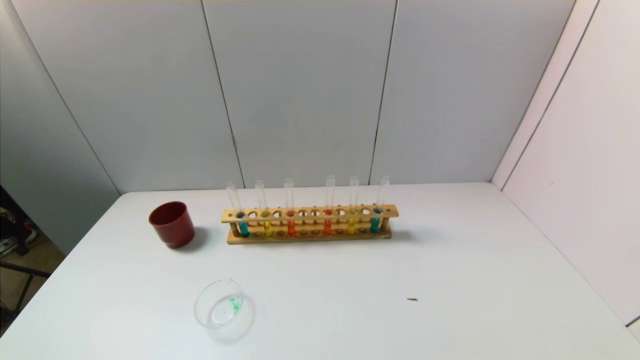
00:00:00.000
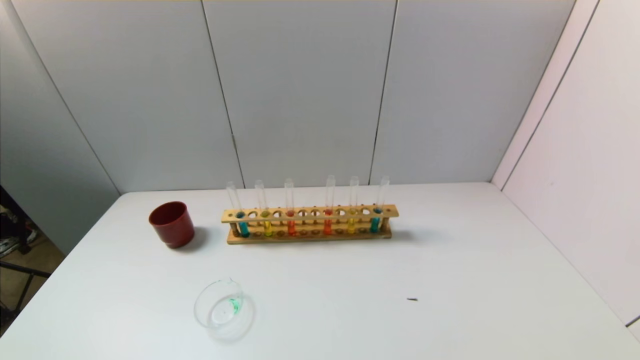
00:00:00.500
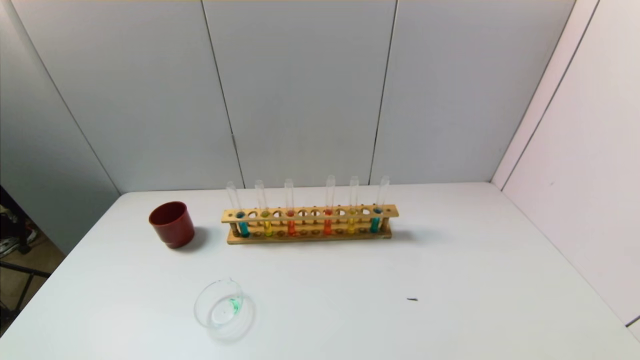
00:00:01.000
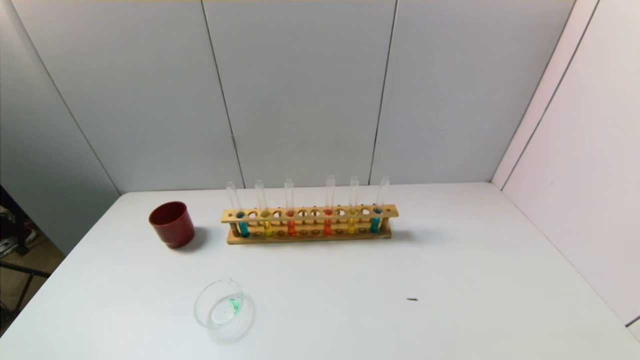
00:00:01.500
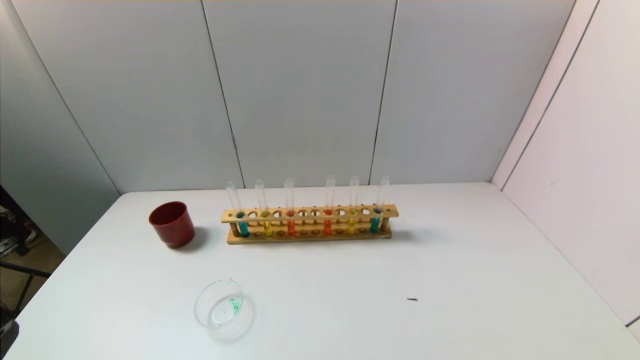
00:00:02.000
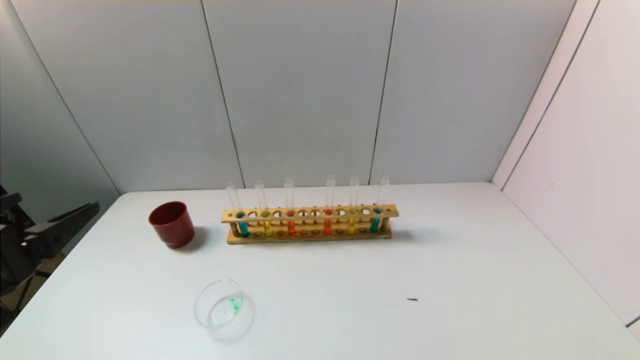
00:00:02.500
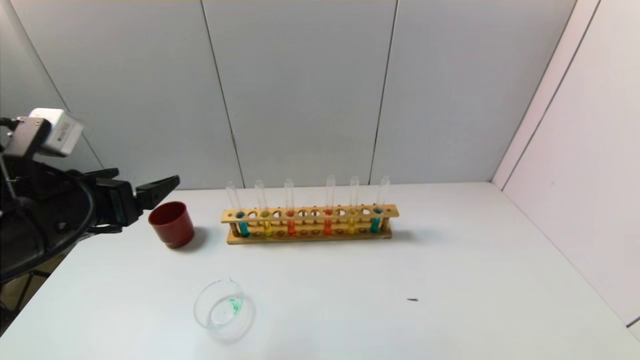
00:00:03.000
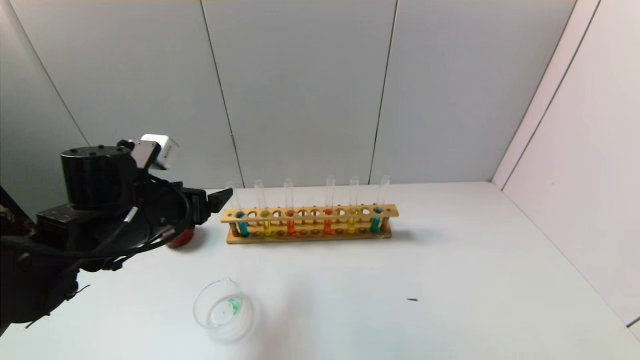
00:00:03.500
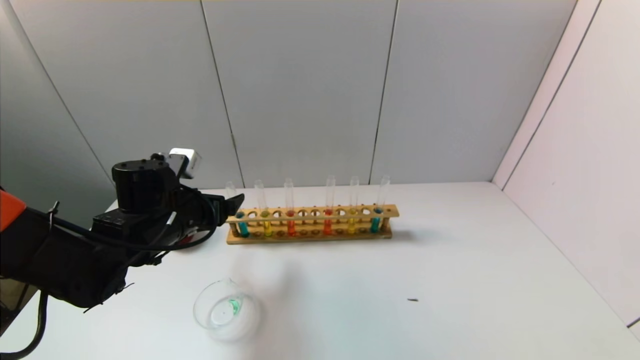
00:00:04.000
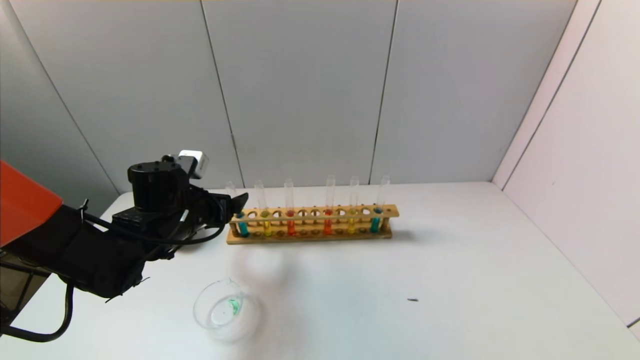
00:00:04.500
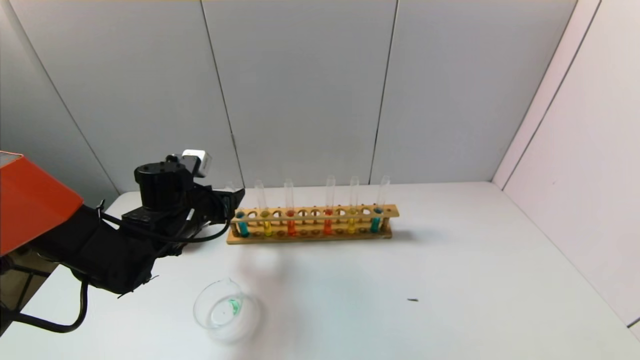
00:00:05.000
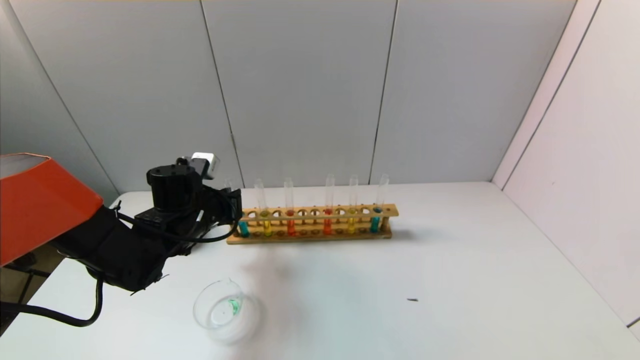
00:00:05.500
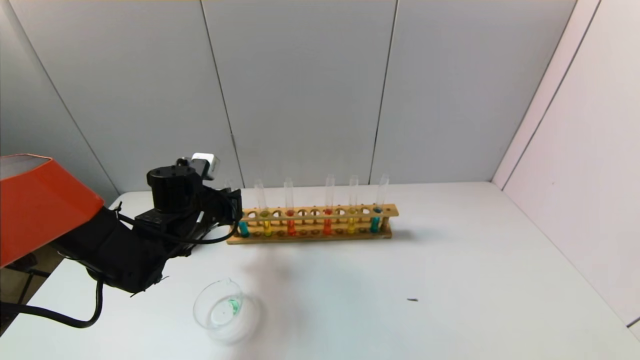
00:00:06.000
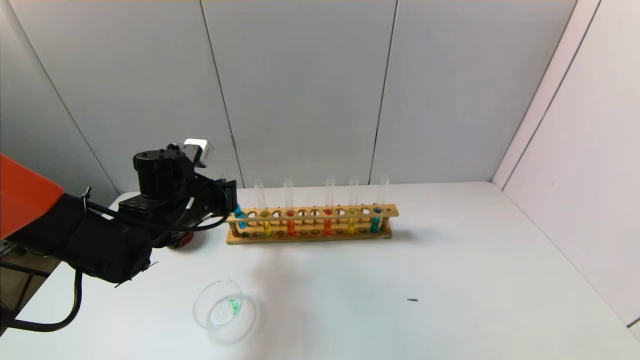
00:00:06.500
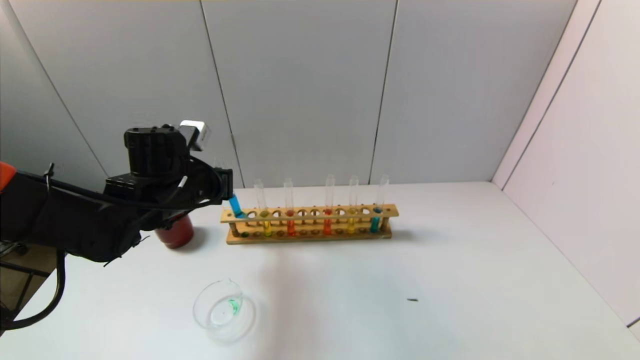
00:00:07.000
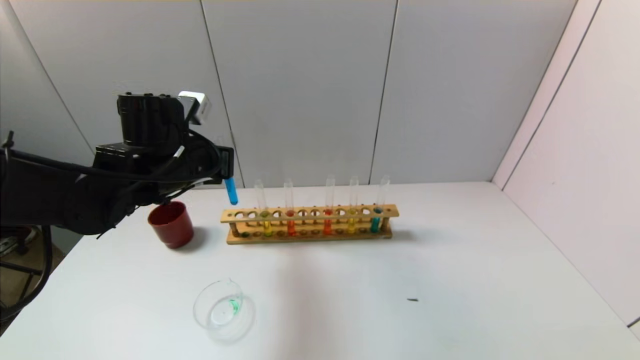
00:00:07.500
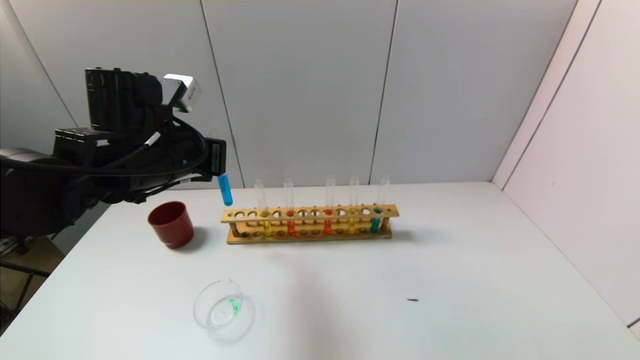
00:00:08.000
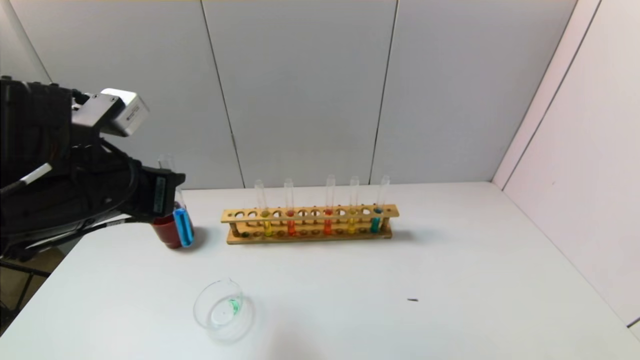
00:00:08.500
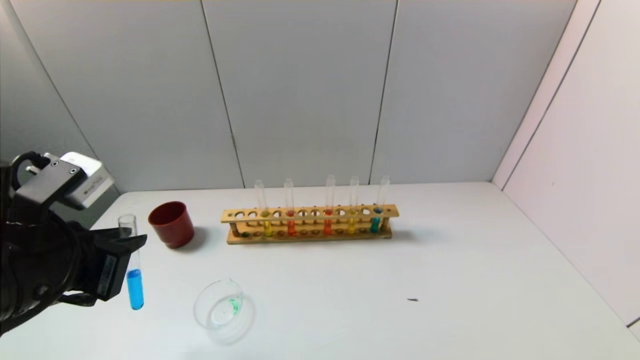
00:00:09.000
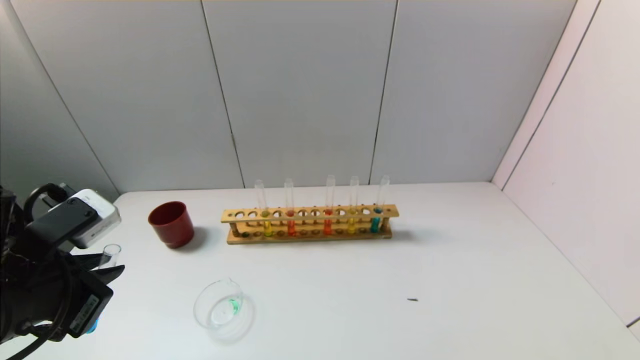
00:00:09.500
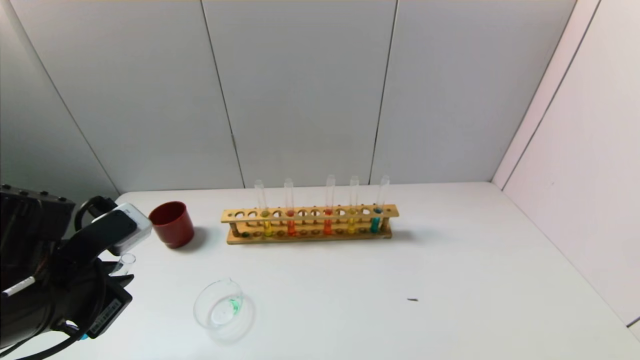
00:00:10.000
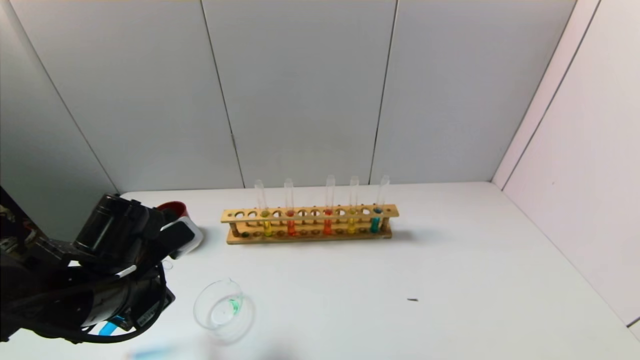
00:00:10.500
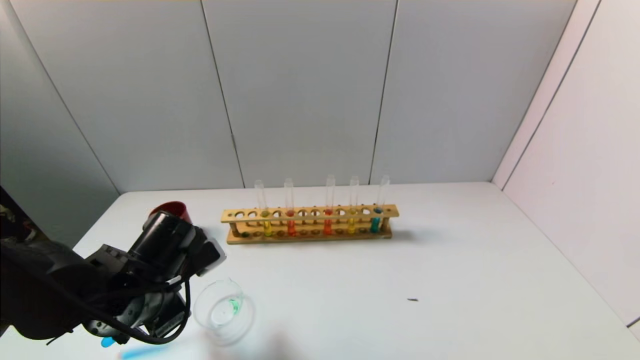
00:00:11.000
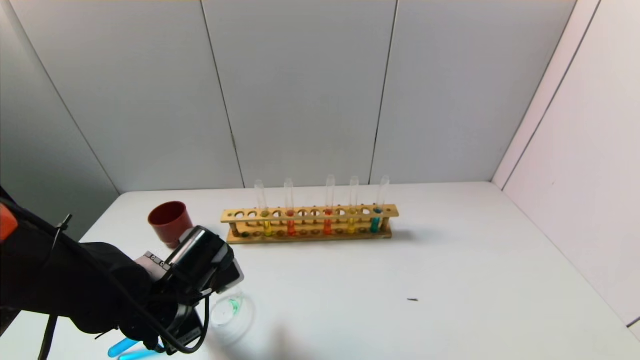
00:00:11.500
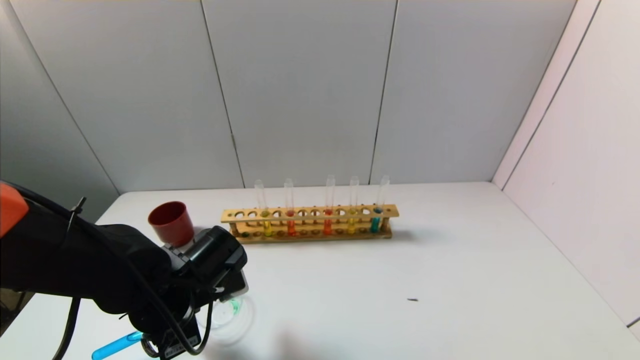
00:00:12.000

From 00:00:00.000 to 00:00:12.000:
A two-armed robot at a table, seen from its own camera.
Task of the whole recording: pick up the test tube with yellow pigment and the test tube with blue pigment by grippers and pour them into the beaker.
Step, from 00:00:00.000 to 00:00:05.500: Grasp the blue reagent with the left gripper.
From 00:00:02.000 to 00:00:04.000: The left gripper shifts roughly 30 cm forward.
From 00:00:04.000 to 00:00:06.000: The left gripper shifts by approximately 5 cm, and closes its fingers.
From 00:00:06.000 to 00:00:08.000: The left gripper moves upward, roughly 15 cm.
From 00:00:08.000 to 00:00:10.000: The left gripper travels backward, downward and to the left by roughly 15 cm.
From 00:00:10.000 to 00:00:12.000: The left gripper is displaced downward, to the right and forward by approximately 15 cm.

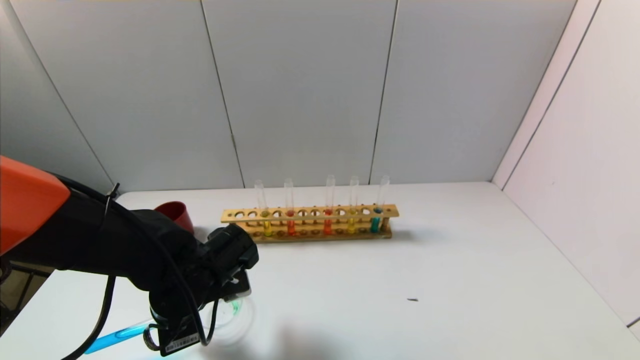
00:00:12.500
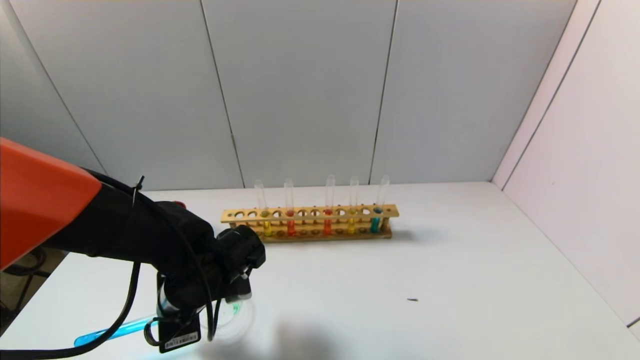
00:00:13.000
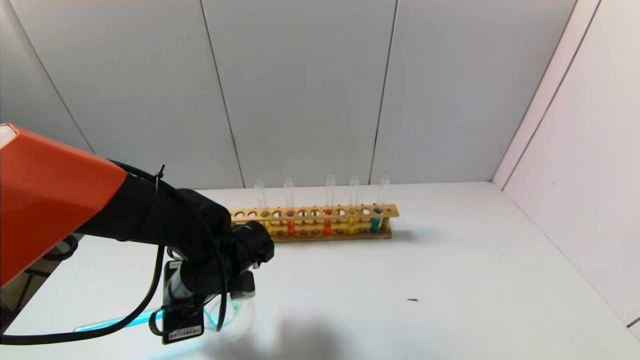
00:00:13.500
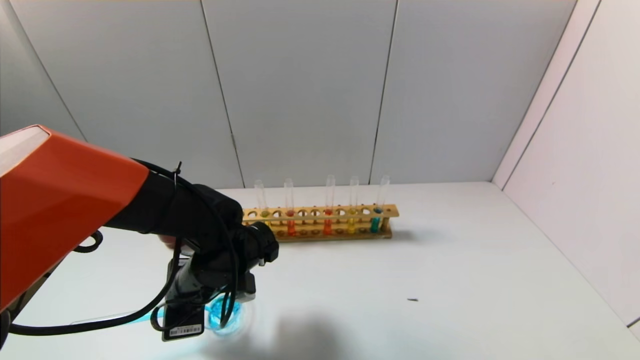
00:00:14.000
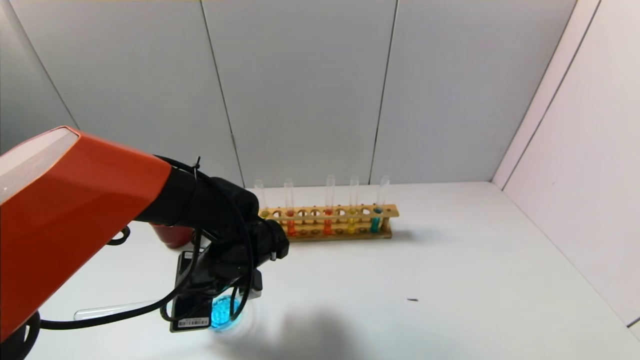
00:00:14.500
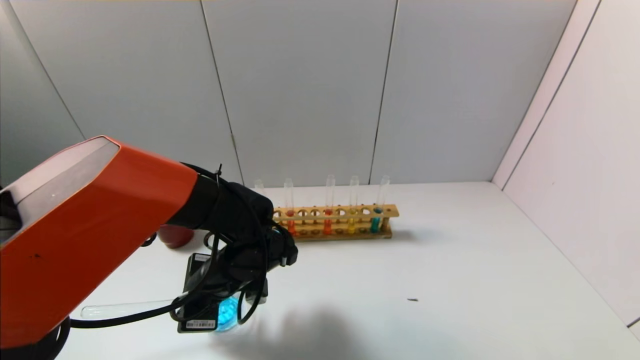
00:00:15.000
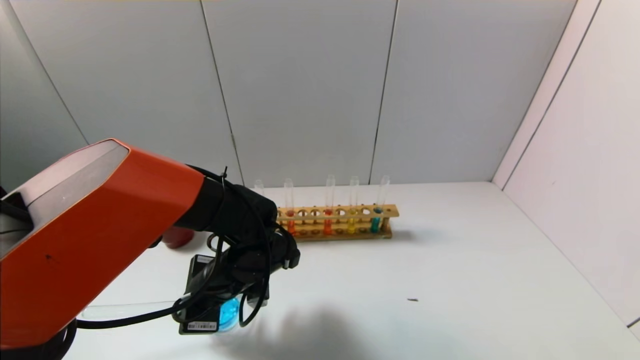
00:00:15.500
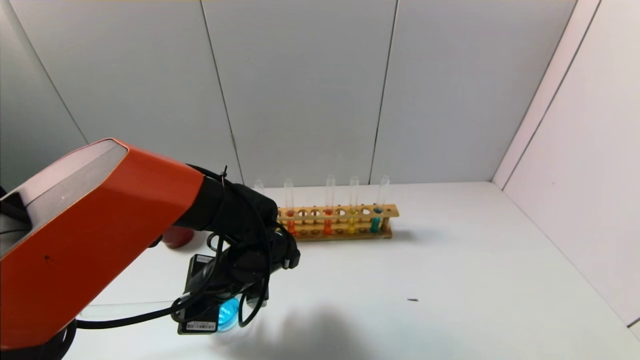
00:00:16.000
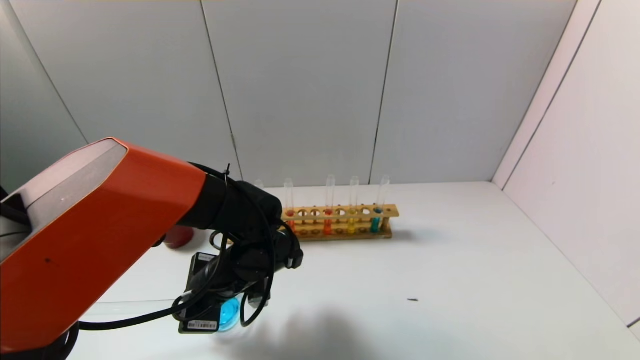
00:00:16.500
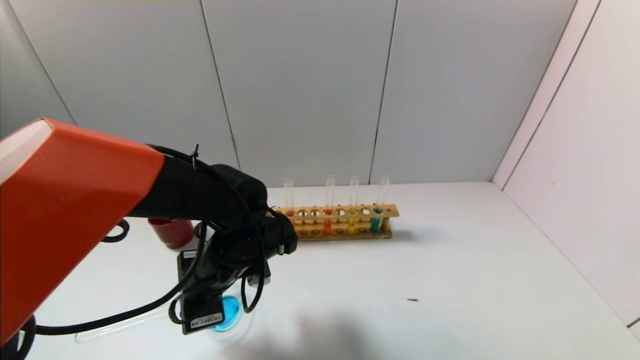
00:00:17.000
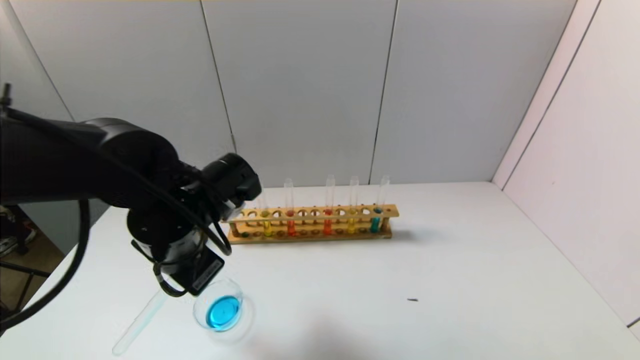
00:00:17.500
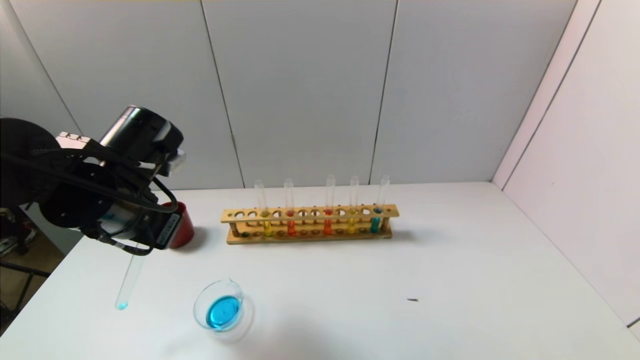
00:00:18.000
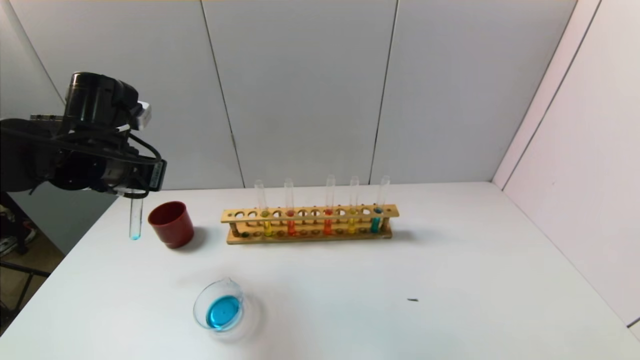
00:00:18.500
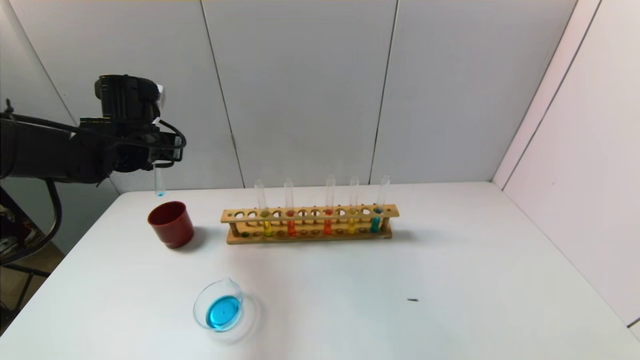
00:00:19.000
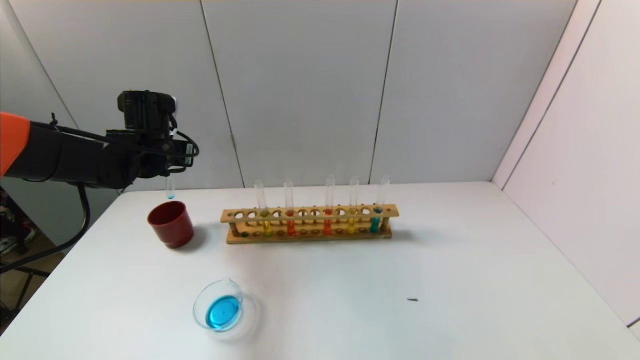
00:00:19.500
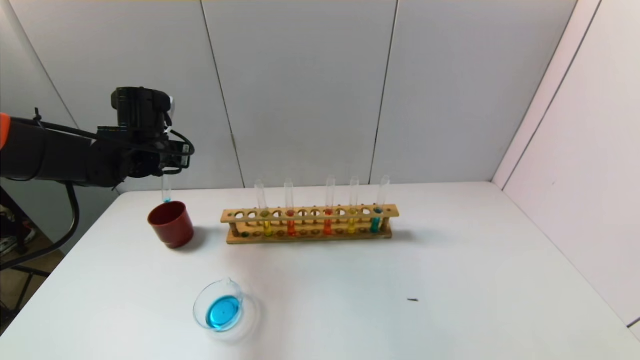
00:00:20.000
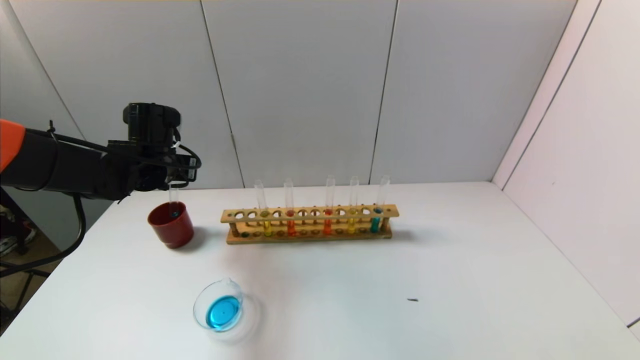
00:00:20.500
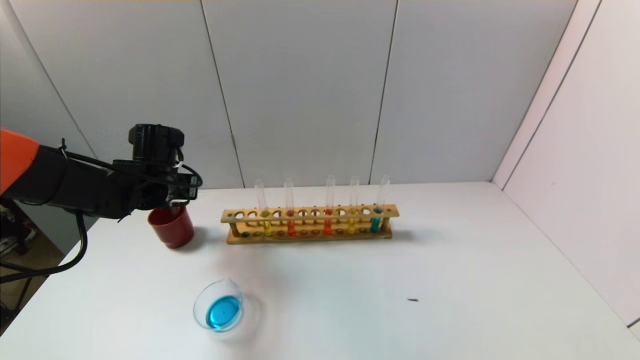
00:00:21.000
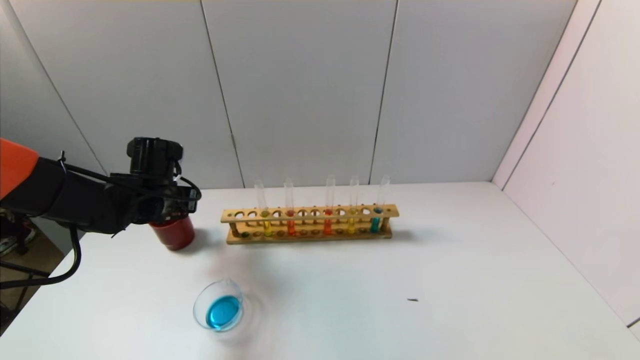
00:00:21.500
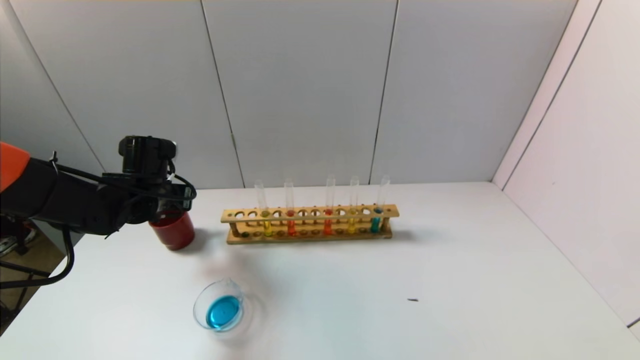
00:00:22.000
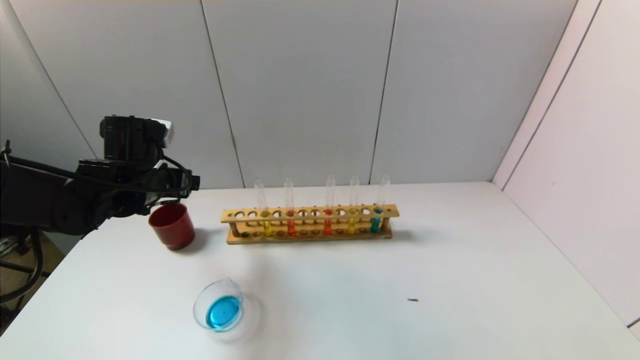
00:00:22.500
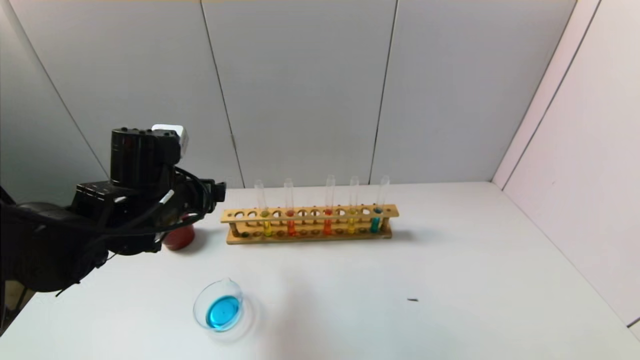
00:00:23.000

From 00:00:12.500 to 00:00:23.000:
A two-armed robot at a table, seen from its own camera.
Task of the whole recording: pick up the test tube with yellow pigment and the test tube with blue pigment by grippers and pour them into the beaker.
Step, from 00:00:12.500 to 00:00:17.000: Pour the blue reagent into the graduated cylinder with the left gripper.
Step, from 00:00:17.500 to 00:00:22.000: Place the test tube into the brown cup with the left gripper.
From 00:00:14.500 to 00:00:16.500: There are only small adjustments of the grippers.
From 00:00:16.500 to 00:00:19.000: The left gripper shifts about 25 cm to the left, upward and forward.
From 00:00:19.000 to 00:00:21.000: The left gripper shifts approximately 5 cm downward.
From 00:00:21.000 to 00:00:23.000: The left gripper goes roughly 10 cm backward and to the right, and opens.
